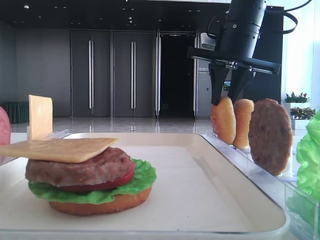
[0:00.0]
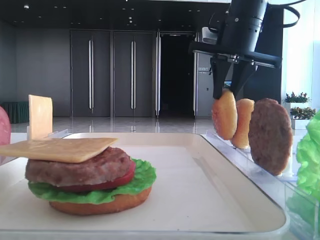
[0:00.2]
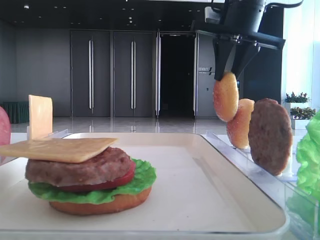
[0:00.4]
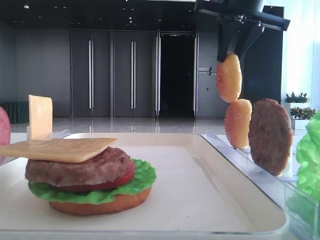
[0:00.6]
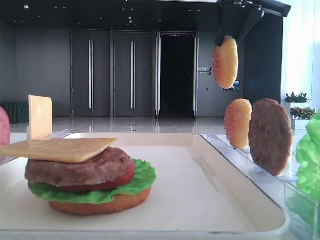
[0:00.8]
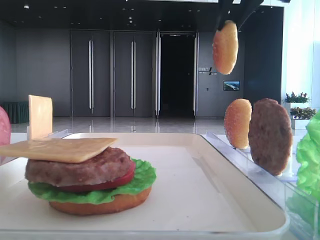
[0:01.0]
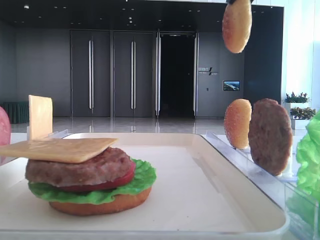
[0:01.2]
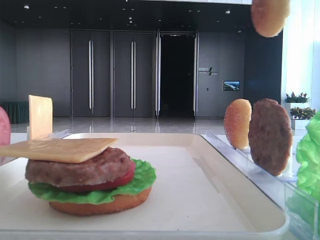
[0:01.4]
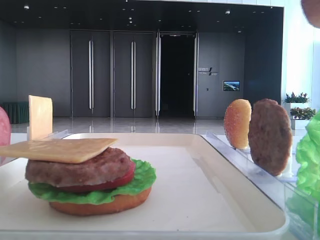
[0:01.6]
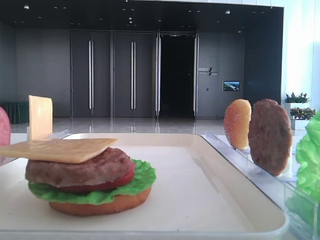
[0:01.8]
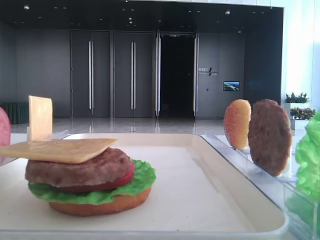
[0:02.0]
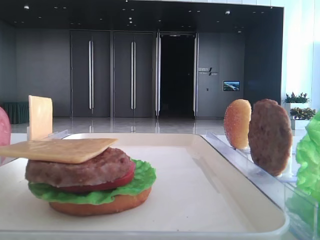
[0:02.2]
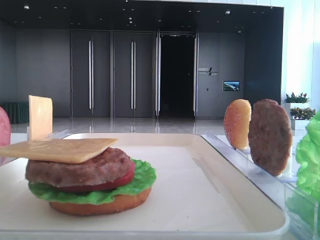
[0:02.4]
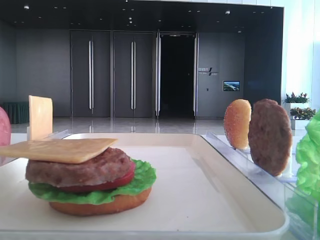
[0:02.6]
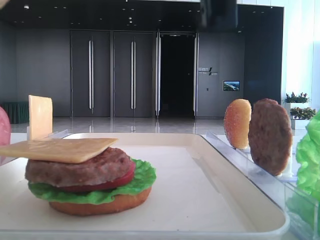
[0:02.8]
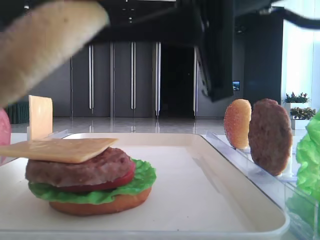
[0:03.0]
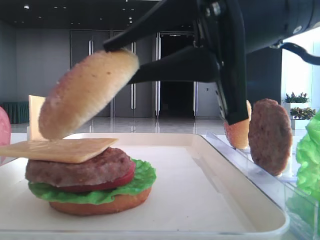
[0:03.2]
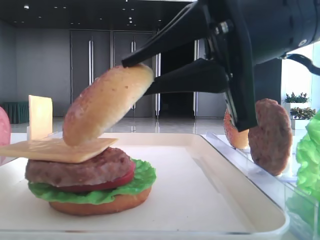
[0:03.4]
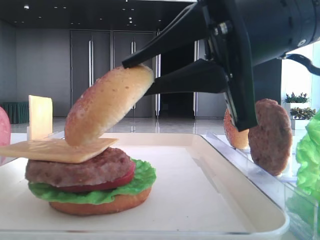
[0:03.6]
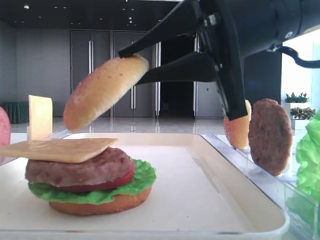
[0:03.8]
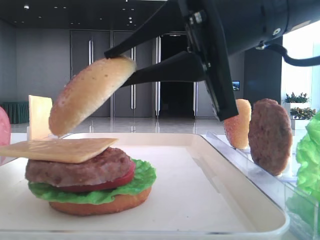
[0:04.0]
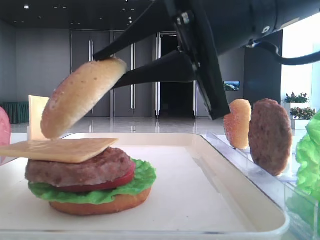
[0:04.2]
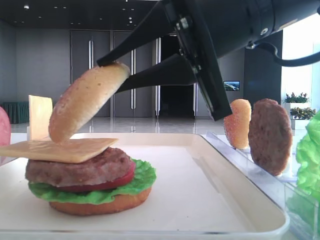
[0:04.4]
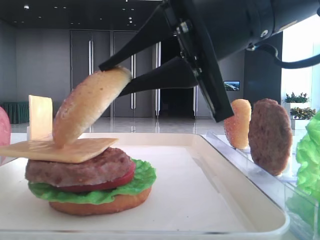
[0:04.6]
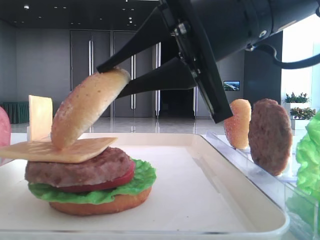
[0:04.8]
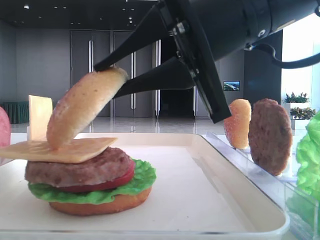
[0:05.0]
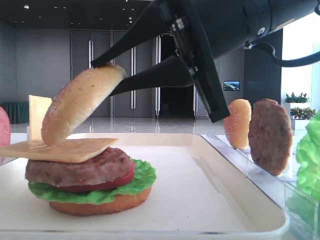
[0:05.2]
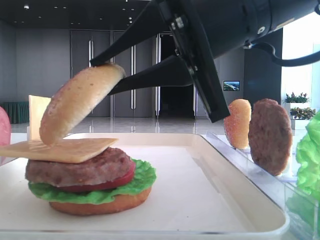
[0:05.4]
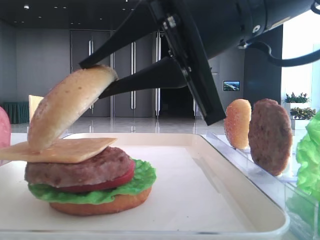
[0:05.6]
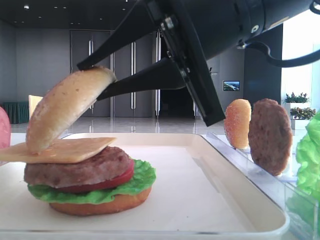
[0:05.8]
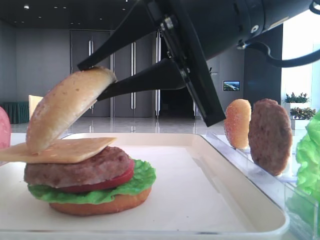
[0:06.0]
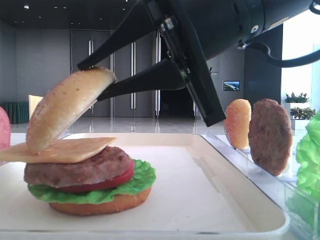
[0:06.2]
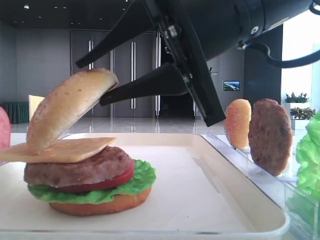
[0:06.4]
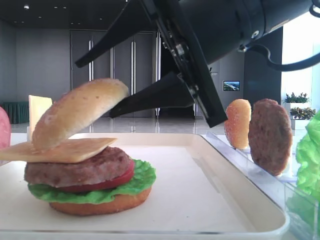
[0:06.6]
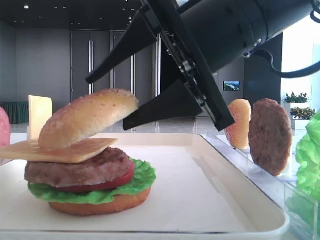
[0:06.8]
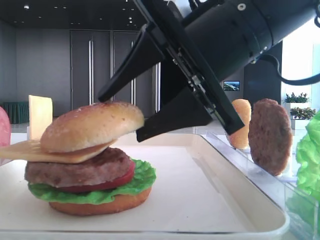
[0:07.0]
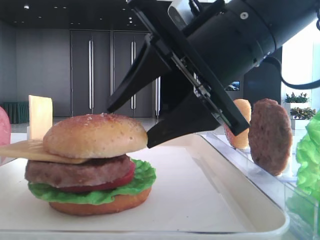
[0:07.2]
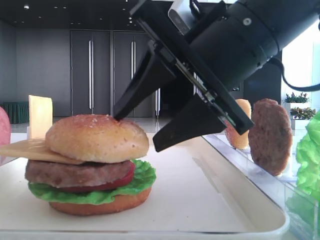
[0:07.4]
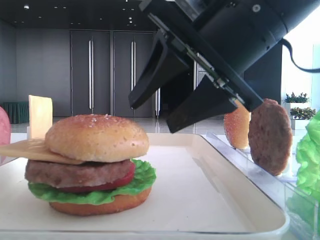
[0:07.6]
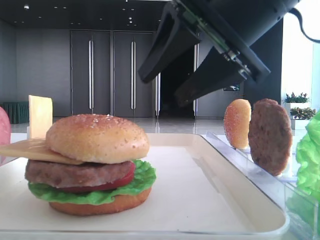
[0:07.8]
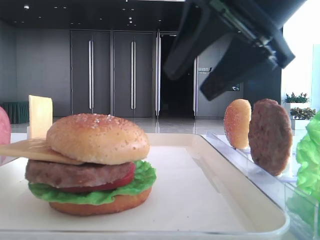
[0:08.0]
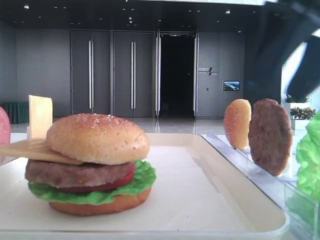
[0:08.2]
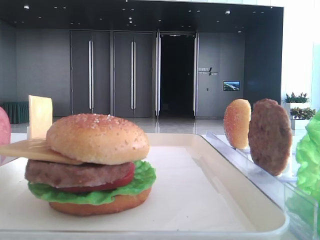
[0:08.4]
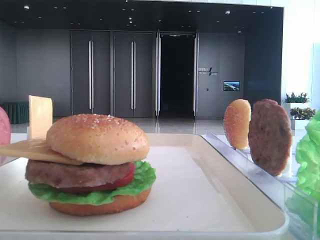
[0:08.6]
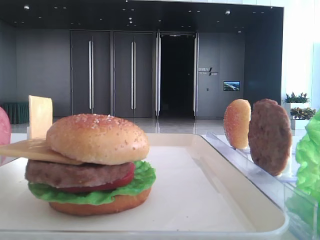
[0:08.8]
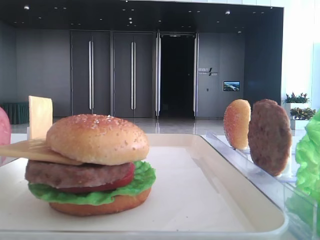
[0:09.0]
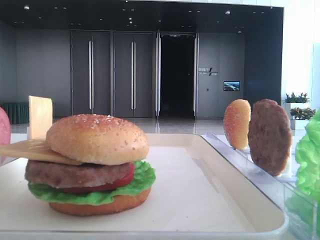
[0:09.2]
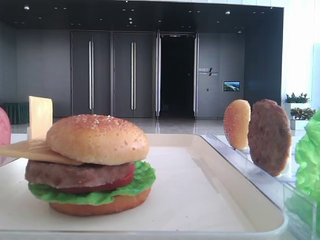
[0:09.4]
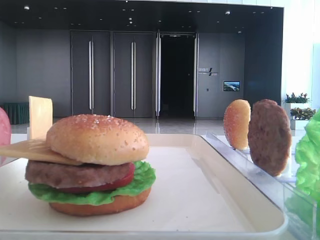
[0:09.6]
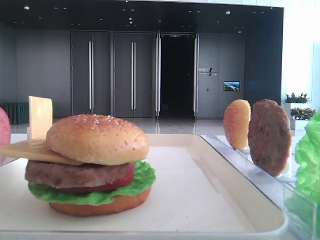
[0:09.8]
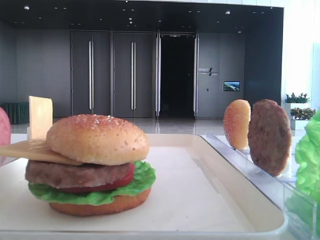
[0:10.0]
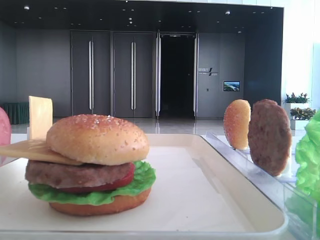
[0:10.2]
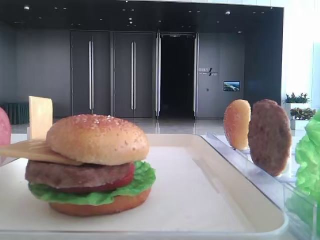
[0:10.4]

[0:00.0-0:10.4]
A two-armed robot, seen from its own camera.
Step, 0:00.2 to 0:07.2: Place the top bread slice on the cheese with the right hand.
0:00.0 to 0:01.4: The right gripper is displaced backward and upward by about 20 cm.
0:01.4 to 0:03.0: The right gripper is displaced downward, to the left and backward by roughly 25 cm.
0:04.4 to 0:06.0: There are only small adjustments of the grippers.
0:06.0 to 0:07.4: The right gripper opens.
0:07.4 to 0:09.0: The right gripper heads to the right, upward and backward, covering approximately 30 cm, and closes its fingers.

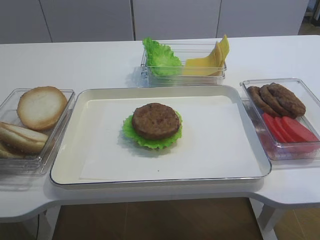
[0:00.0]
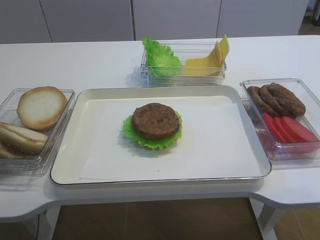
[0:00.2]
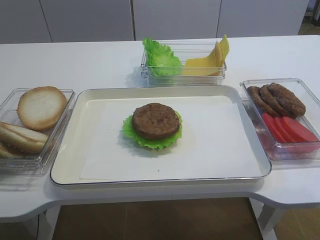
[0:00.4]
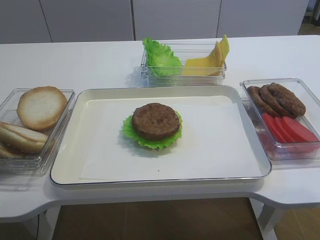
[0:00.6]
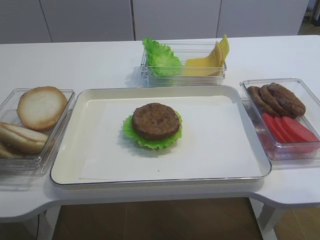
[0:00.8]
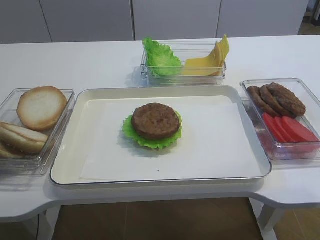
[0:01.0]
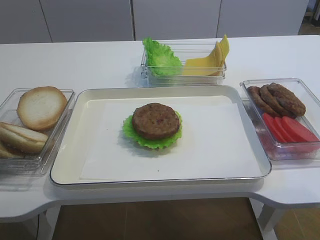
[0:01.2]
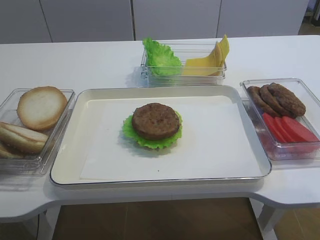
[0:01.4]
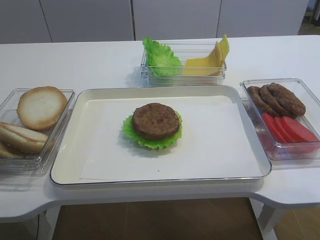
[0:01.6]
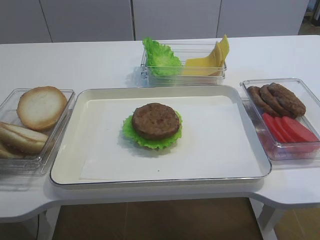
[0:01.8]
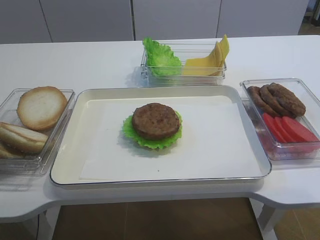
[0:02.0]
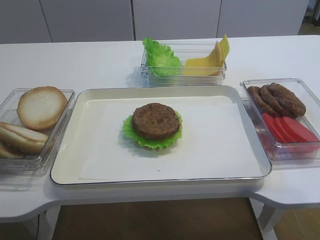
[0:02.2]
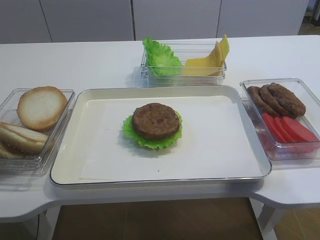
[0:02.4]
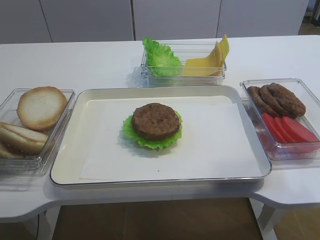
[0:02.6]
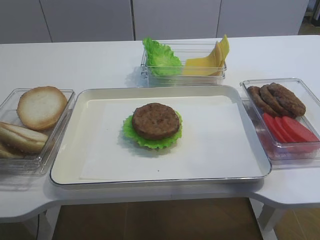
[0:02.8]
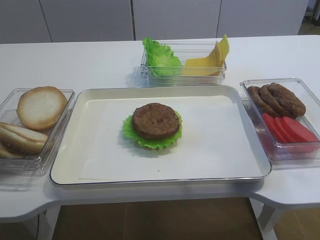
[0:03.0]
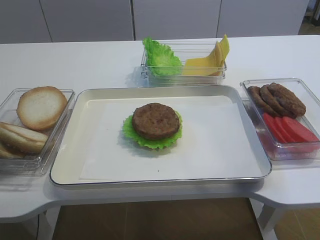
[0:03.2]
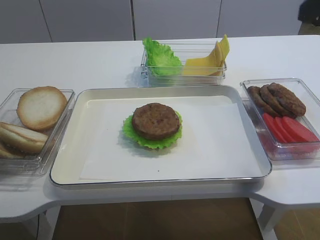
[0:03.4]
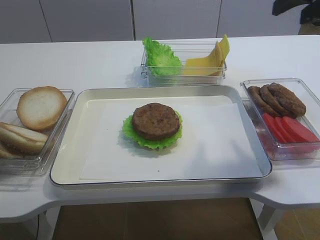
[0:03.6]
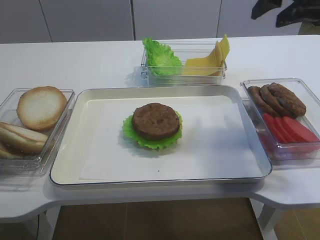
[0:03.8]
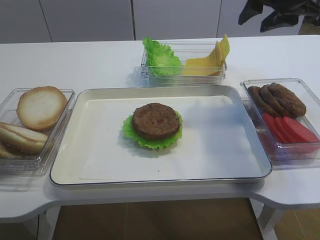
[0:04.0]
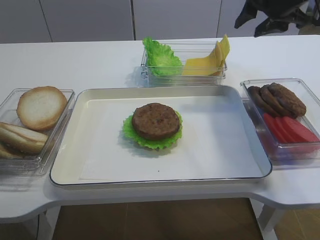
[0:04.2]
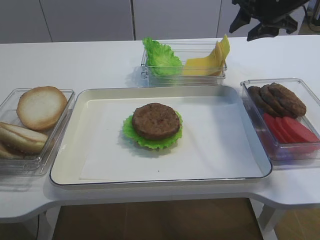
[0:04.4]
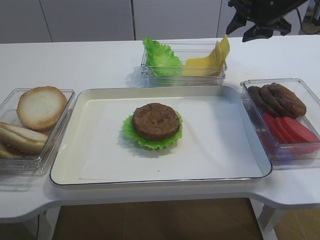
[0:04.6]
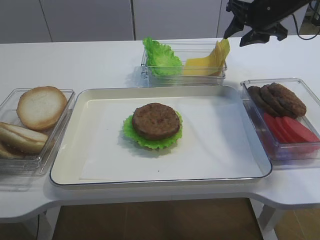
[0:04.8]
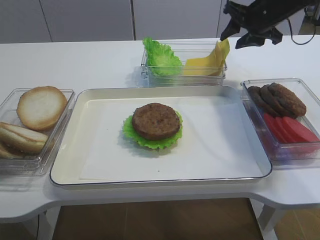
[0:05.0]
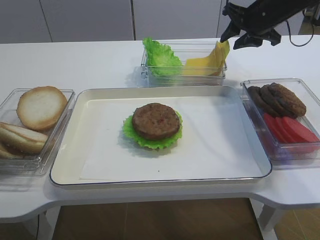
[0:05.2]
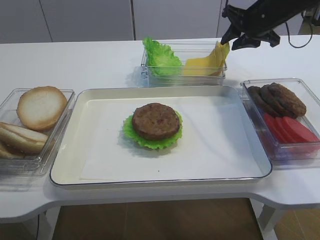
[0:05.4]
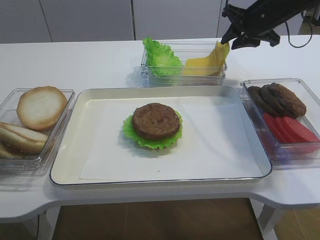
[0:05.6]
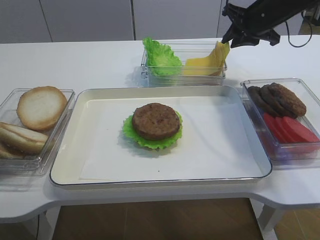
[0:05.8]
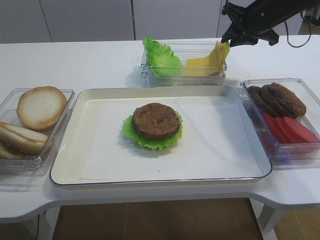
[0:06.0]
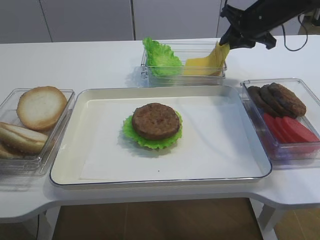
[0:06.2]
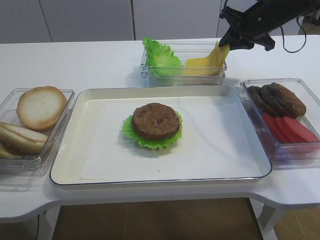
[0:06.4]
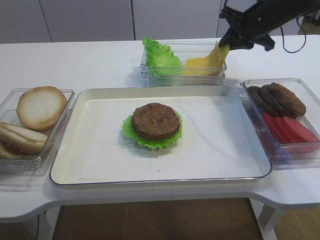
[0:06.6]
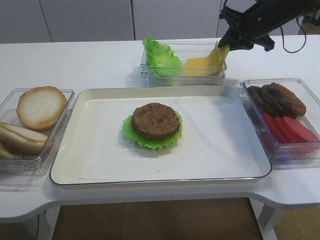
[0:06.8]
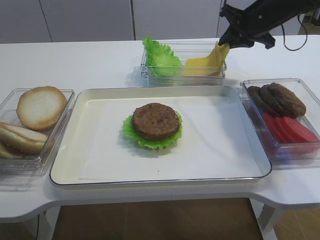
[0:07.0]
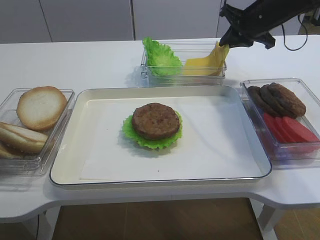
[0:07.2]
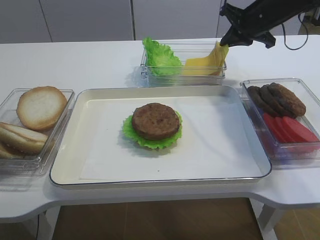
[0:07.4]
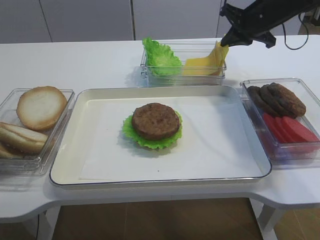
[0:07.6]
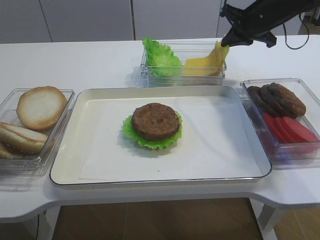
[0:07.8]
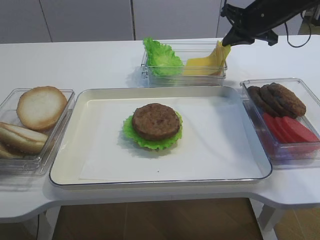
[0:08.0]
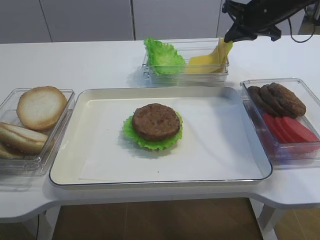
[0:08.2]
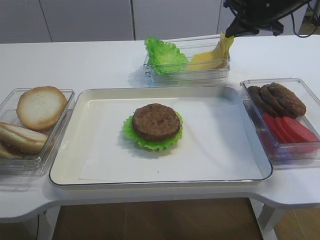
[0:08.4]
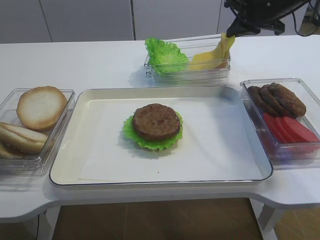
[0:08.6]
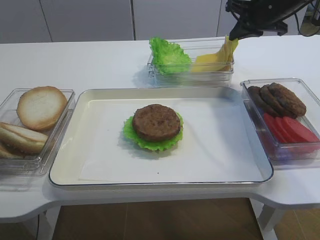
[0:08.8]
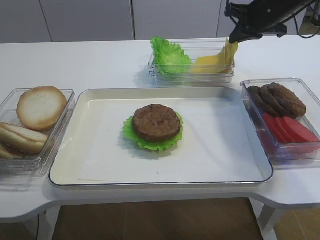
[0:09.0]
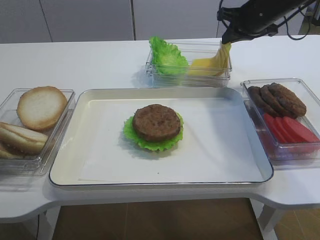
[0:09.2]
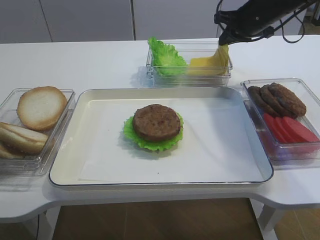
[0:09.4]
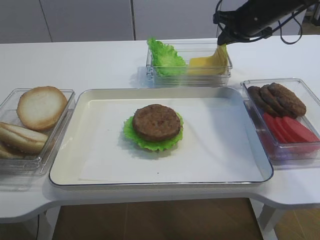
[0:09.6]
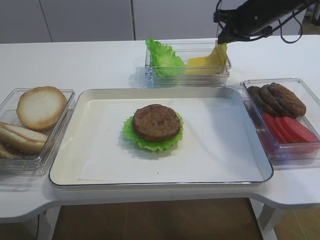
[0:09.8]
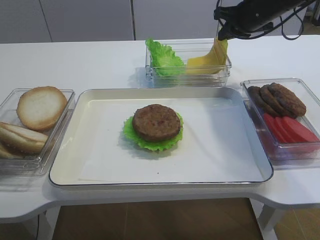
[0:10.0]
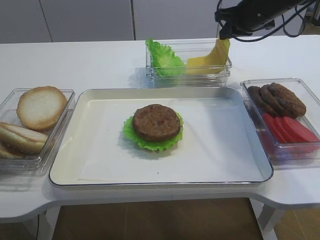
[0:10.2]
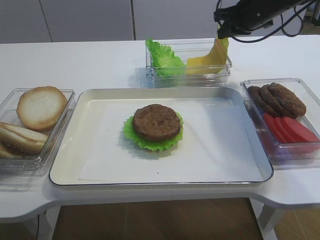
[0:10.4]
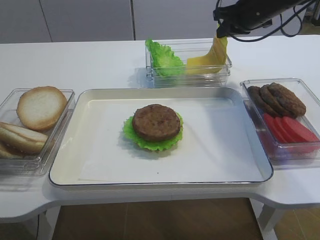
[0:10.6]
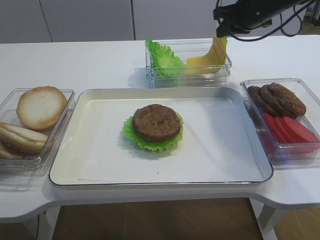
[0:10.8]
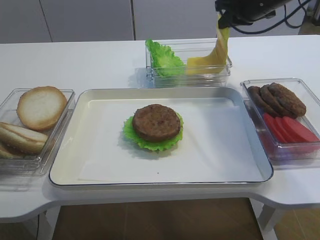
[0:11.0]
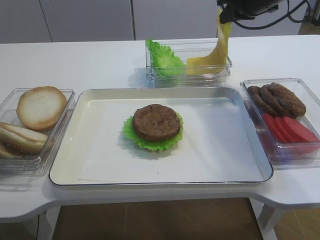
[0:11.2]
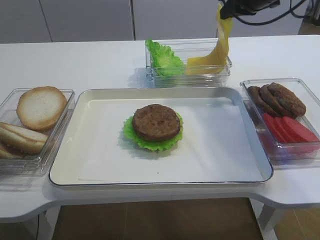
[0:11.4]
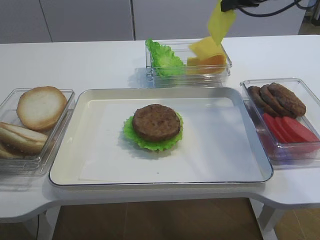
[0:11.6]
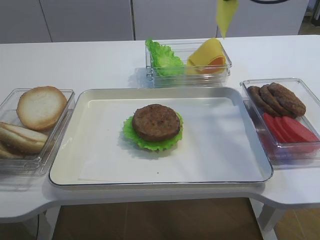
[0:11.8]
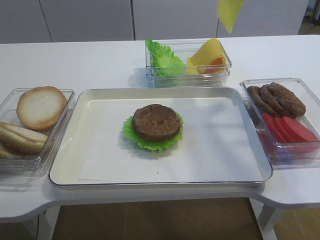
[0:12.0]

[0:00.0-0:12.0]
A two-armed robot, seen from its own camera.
Step, 0:00.0 to 0:11.4: Pick up the cheese slice with the right gripper.
0:01.6 to 0:03.0: The right gripper is displaced upward and forward by roughly 15 cm, and opens its fingers.
0:03.0 to 0:04.4: The right gripper moves forward, some 35 cm.
0:04.4 to 0:06.0: The right gripper shifts by approximately 5 cm, and closes up.
0:06.0 to 0:07.6: The right gripper closes its fingers.
0:07.6 to 0:09.0: There are only small adjustments of the grippers.
0:09.0 to 0:10.4: The grippers stay close to where they were, moving slightly.
0:10.4 to 0:12.0: The right gripper goes about 10 cm upward and backward.
